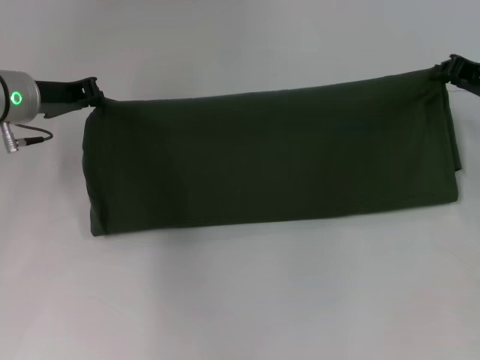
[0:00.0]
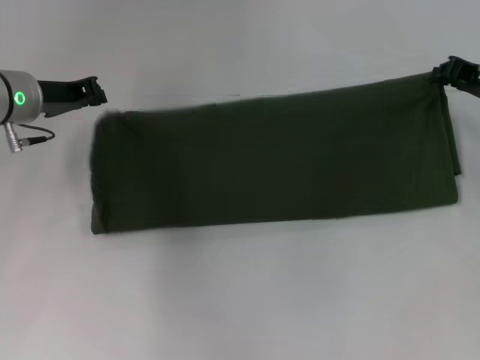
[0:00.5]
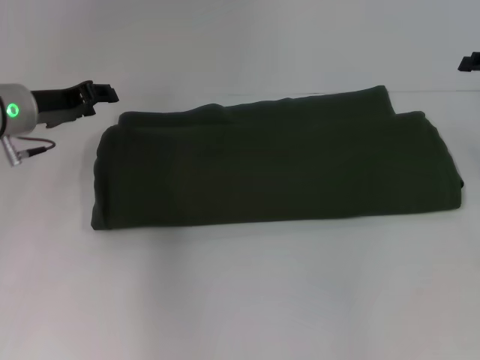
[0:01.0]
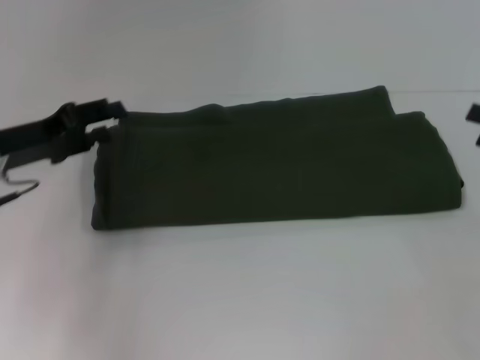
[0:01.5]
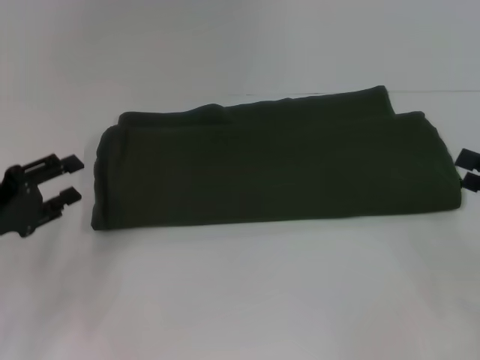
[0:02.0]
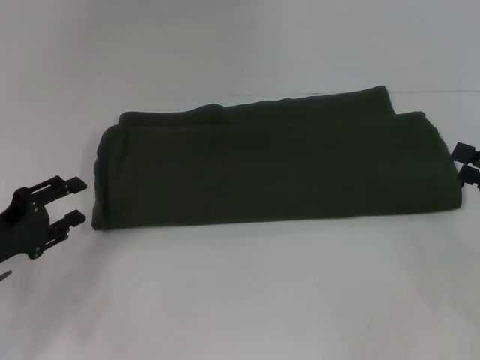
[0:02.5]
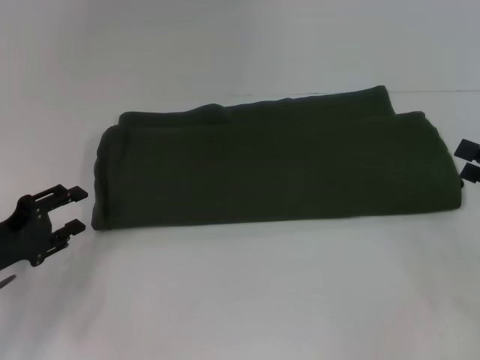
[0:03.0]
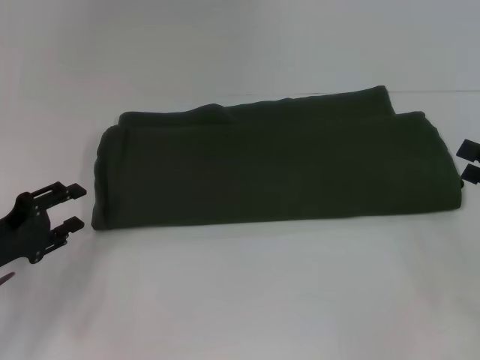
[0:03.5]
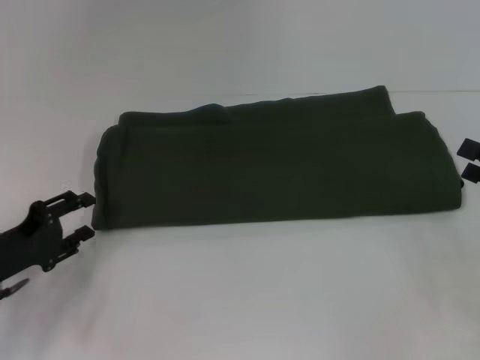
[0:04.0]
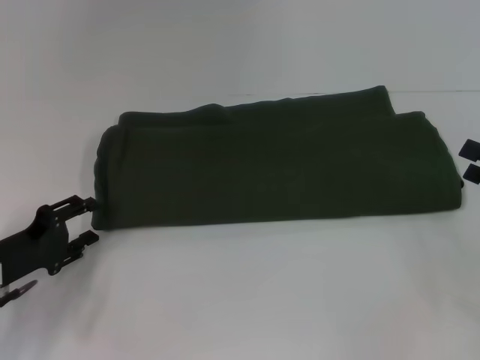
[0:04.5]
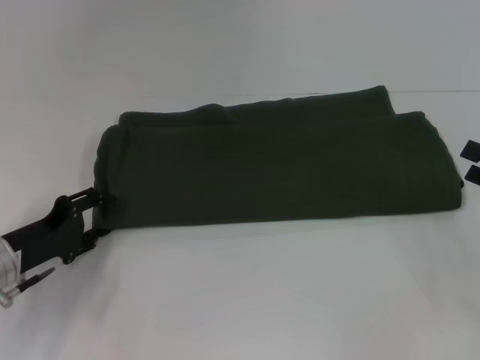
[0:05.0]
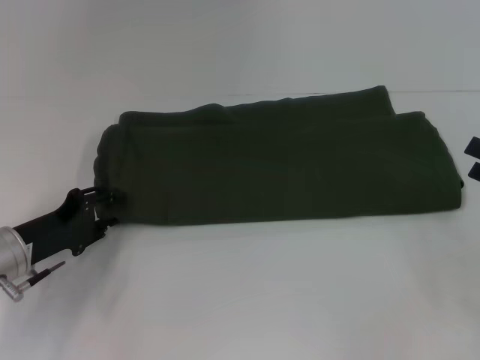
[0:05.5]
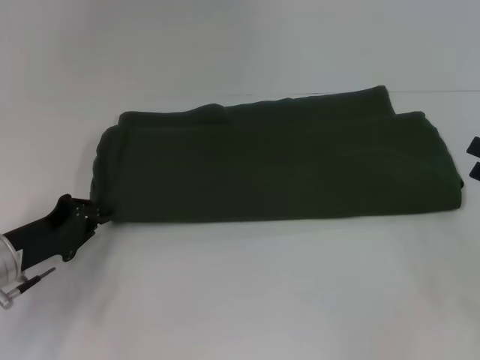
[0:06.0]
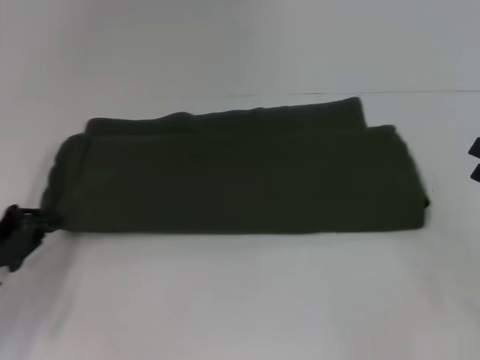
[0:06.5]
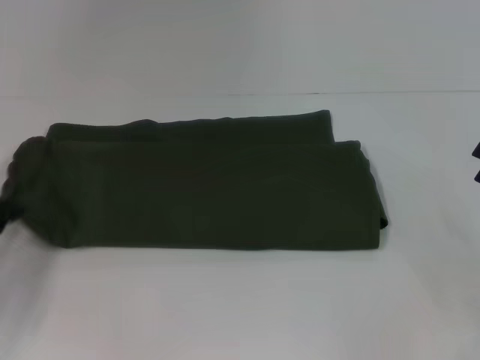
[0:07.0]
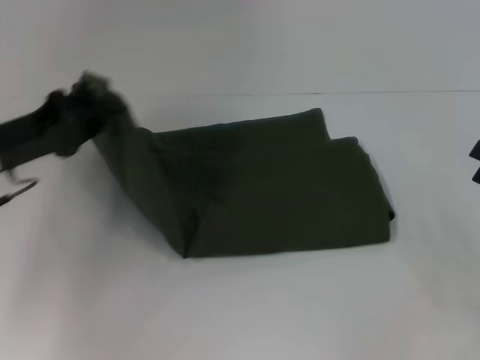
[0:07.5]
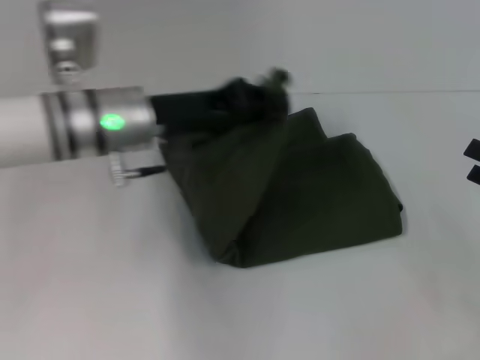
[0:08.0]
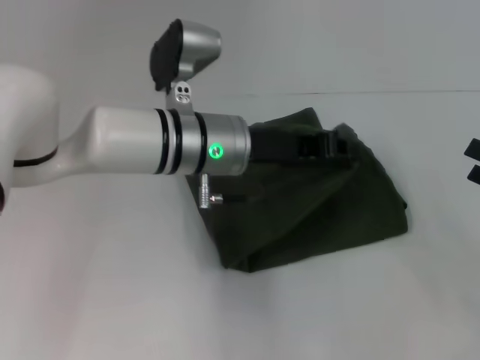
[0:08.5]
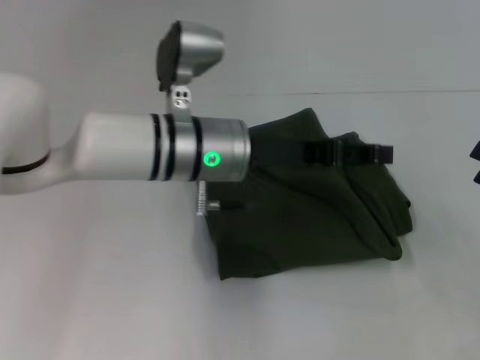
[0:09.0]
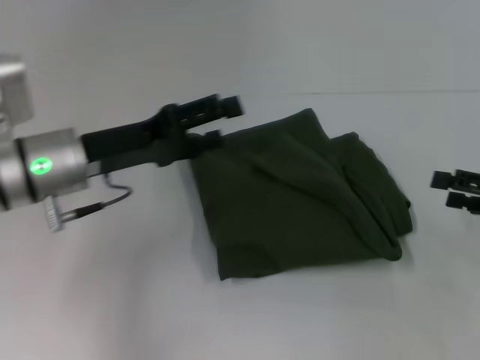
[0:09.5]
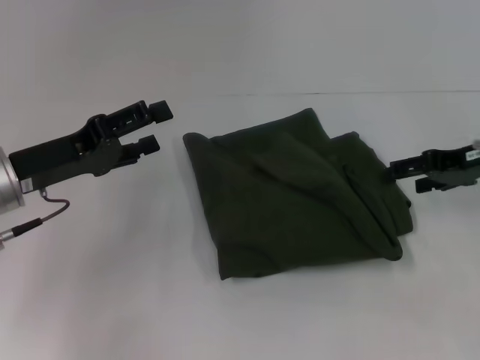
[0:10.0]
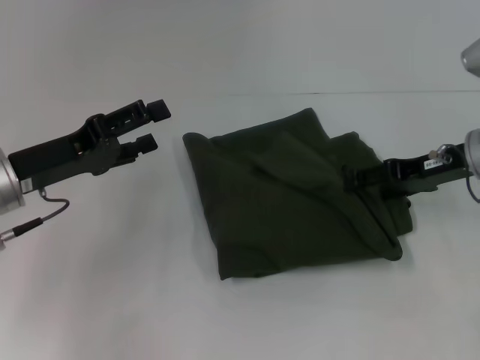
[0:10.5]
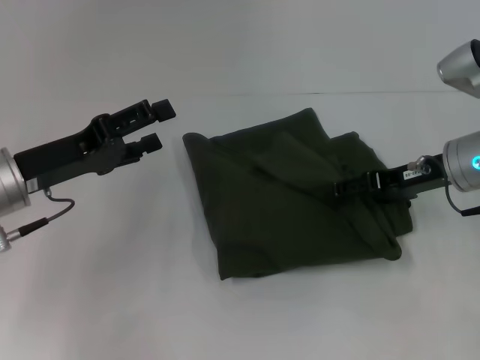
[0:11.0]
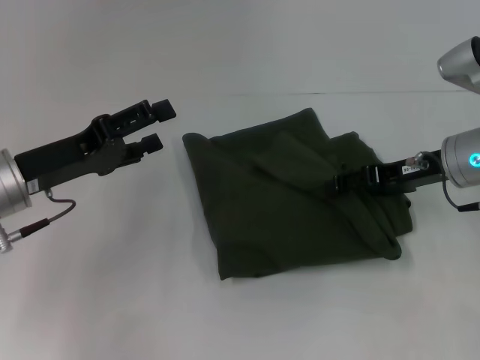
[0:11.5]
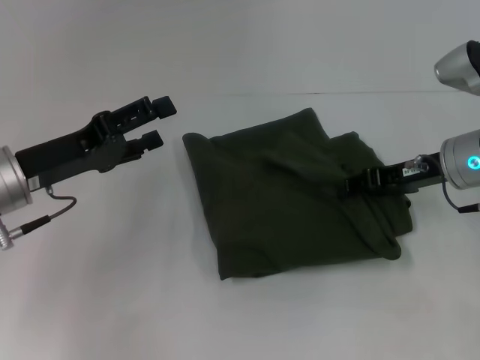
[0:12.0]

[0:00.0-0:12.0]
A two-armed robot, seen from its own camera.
Step, 0.0 to 9.0 s: Fold the clothes with your left hand.
0.0 to 2.0 s: The left gripper travels backward, to the left and downward by some 20 cm, and opens. Meanwhile the right gripper is displaced backward and to the right by about 15 cm, and opens up.
2.0 to 4.0 s: The grippers stay close to where they were, moving slightly.
4.0 to 6.0 s: The left gripper closes up.
6.0 to 8.0 s: The left gripper travels to the right, upward and forward by approximately 20 cm.
8.0 to 10.0 s: The right gripper shifts roughly 15 cm forward, to the left and upward. The left gripper shifts some 10 cm to the left and backward, and opens up.
10.0 to 12.0 s: The right gripper goes some 5 cm to the left.

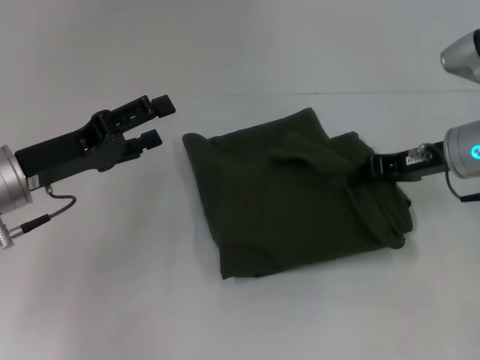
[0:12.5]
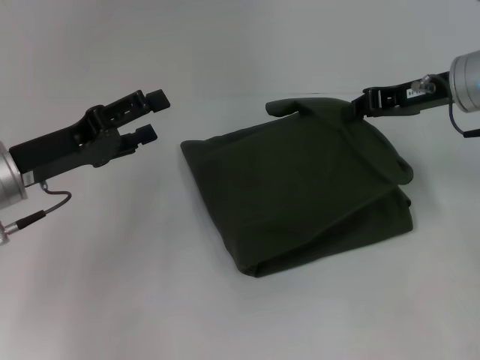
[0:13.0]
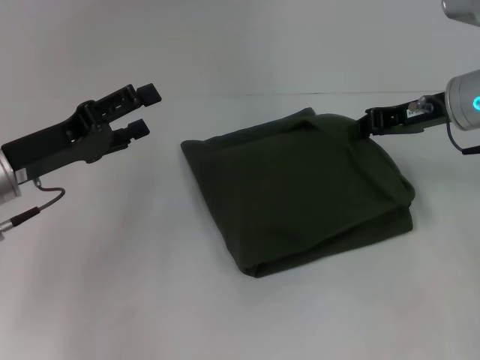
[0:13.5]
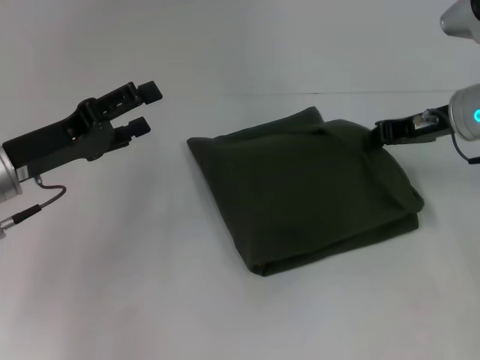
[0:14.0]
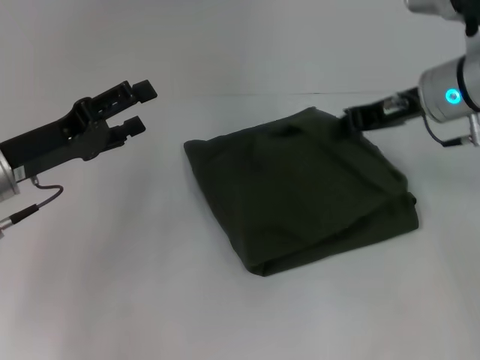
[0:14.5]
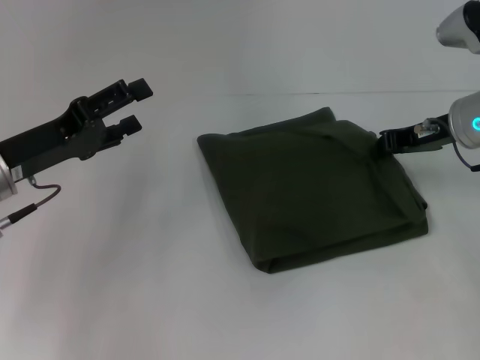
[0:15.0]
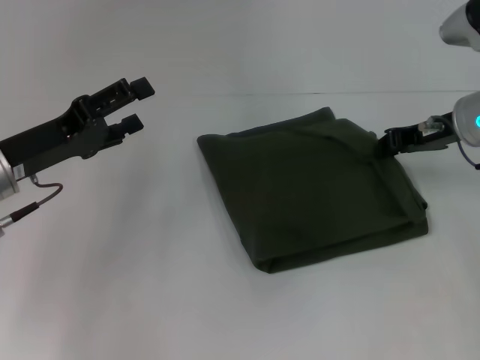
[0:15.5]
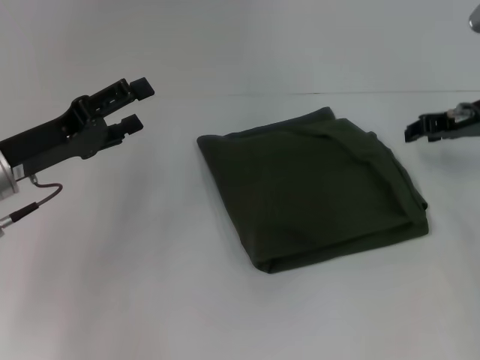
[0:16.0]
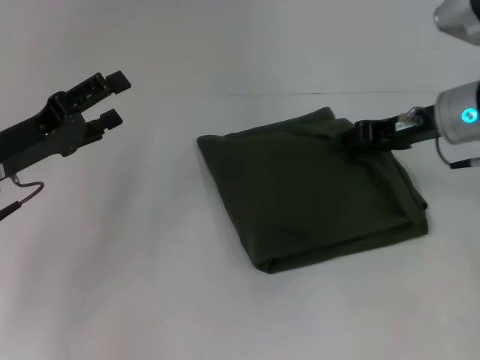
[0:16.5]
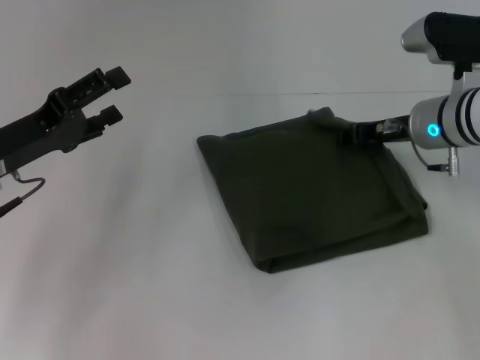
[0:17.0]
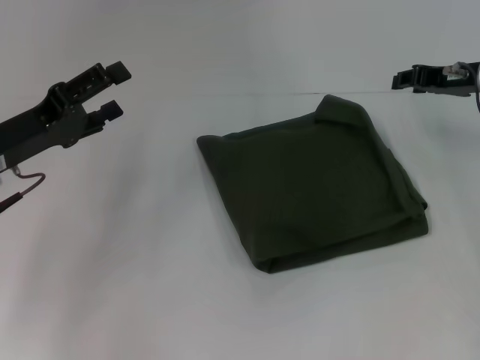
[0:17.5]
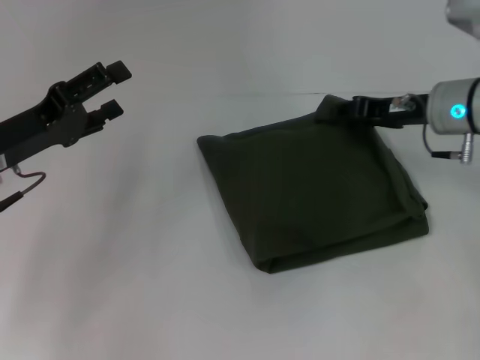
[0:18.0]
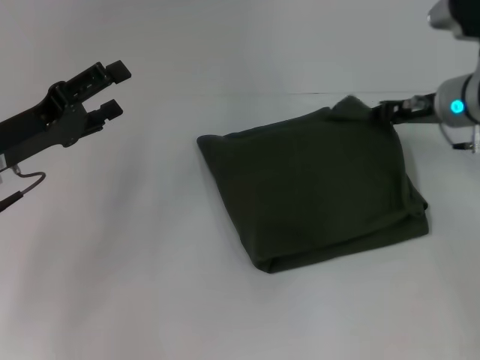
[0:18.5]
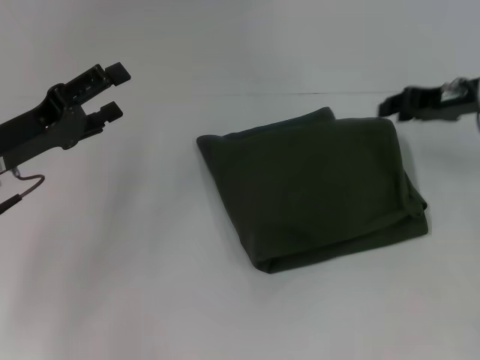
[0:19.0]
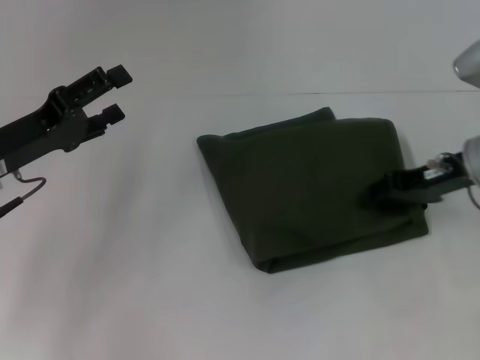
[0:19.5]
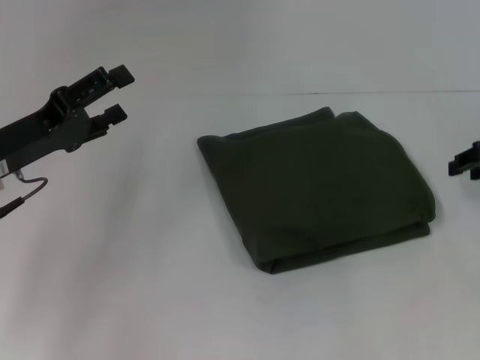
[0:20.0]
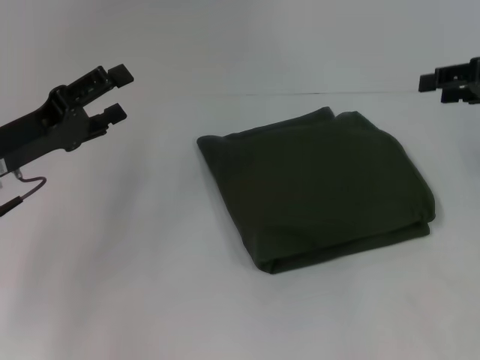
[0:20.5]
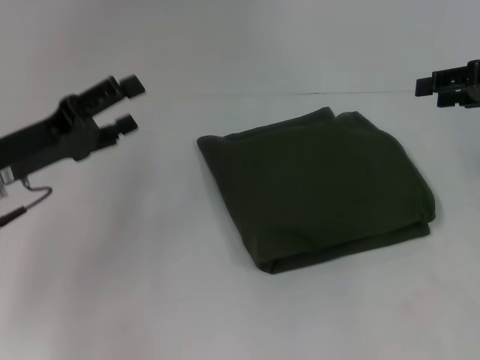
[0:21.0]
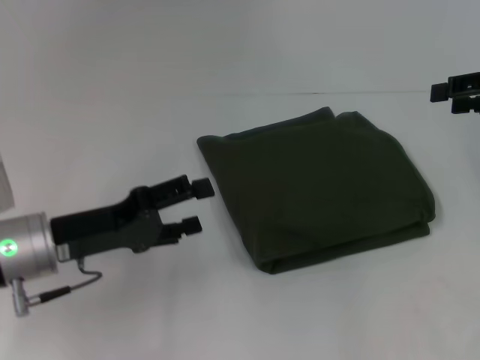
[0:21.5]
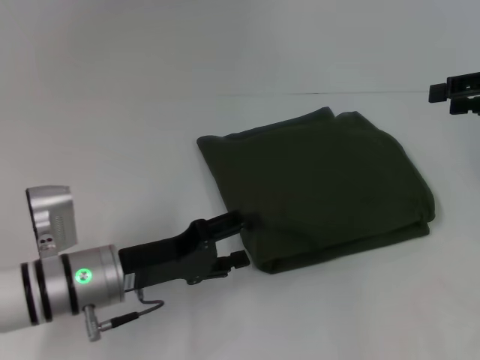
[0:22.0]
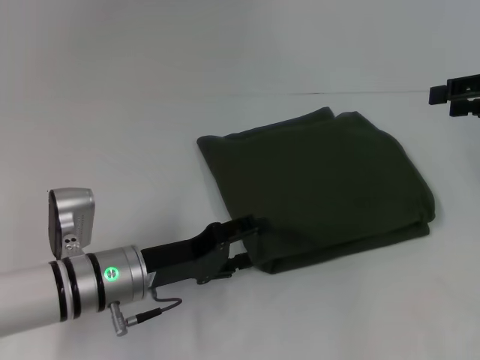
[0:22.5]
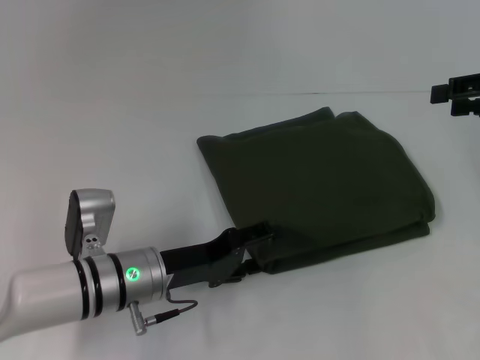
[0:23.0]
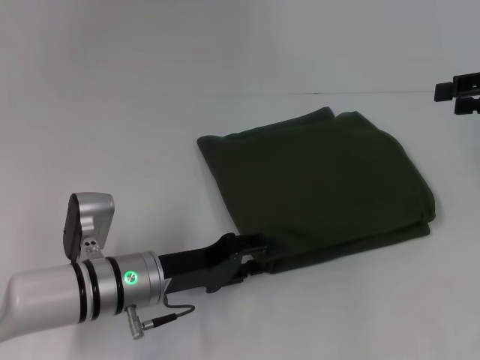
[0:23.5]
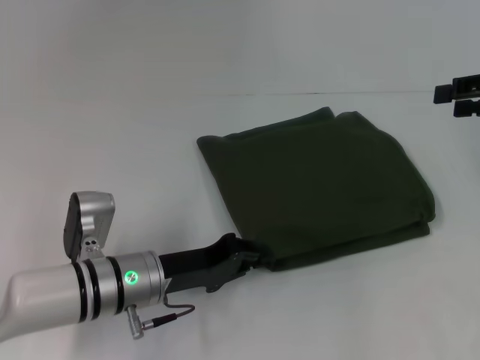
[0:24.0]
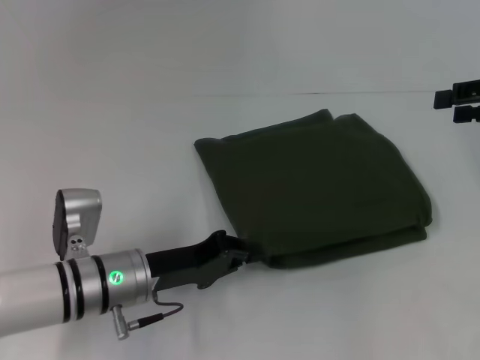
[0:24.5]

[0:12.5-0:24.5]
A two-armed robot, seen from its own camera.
12.5 to 14.5 s: The right gripper heads upward, covering approximately 5 cm.
14.5 to 16.5 s: The right gripper opens up.
18.5 to 20.5 s: The right gripper shifts about 15 cm to the right, upward and backward.
20.5 to 22.5 s: The left gripper travels to the right and downward by approximately 15 cm.
22.5 to 24.5 s: The left gripper closes up.

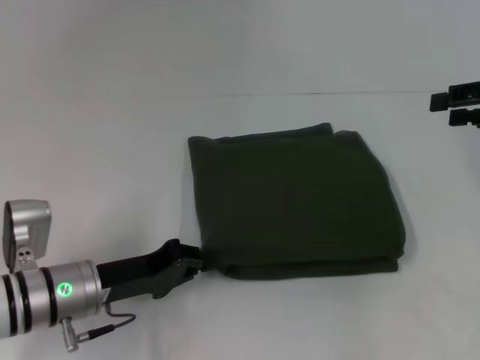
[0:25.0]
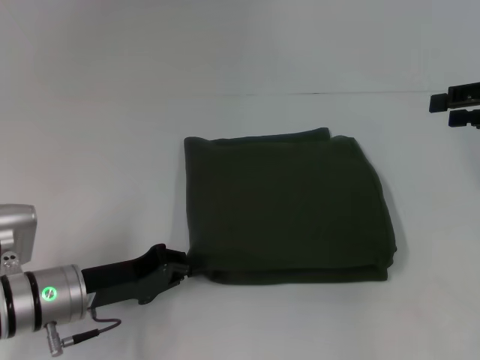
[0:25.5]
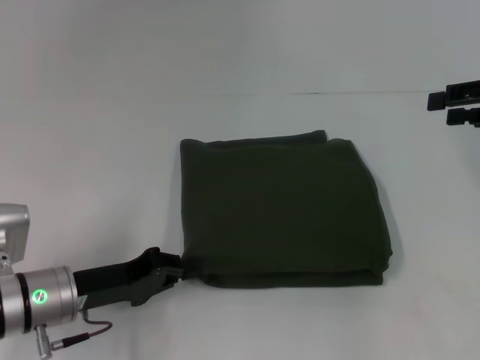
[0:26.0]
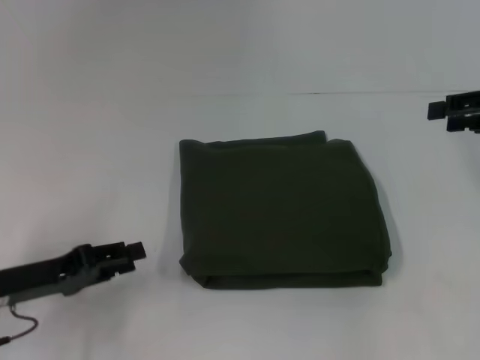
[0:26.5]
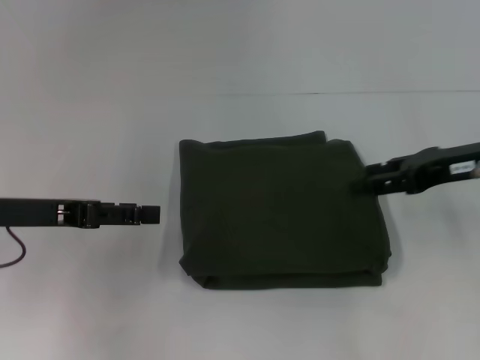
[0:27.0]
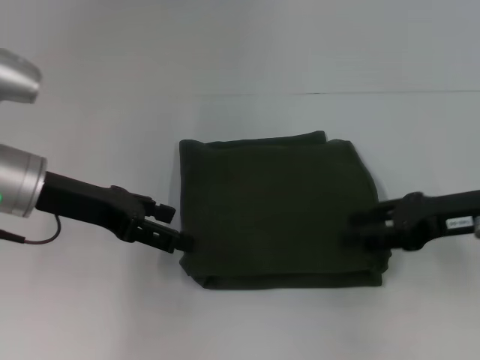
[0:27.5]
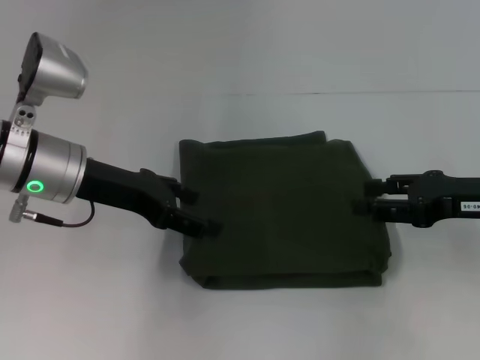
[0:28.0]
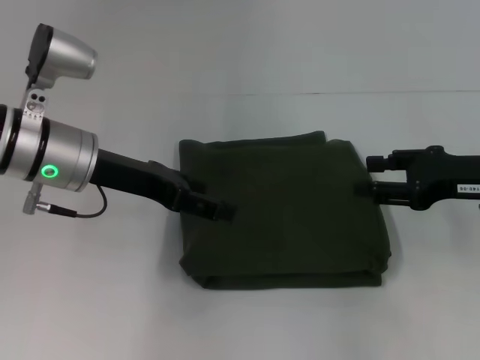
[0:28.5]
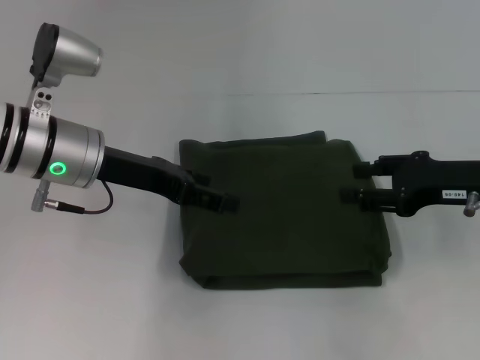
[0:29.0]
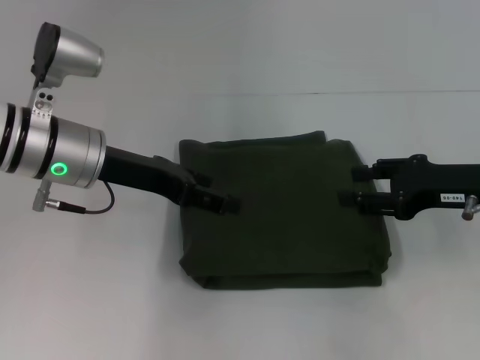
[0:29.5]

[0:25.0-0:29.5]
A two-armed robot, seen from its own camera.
25.0 to 27.0 s: The right gripper is displaced to the left by approximately 5 cm, while the left gripper is displaced upward and to the left by some 15 cm, and opens up.
27.0 to 29.5 s: The left gripper shifts roughly 10 cm to the right and forward.
